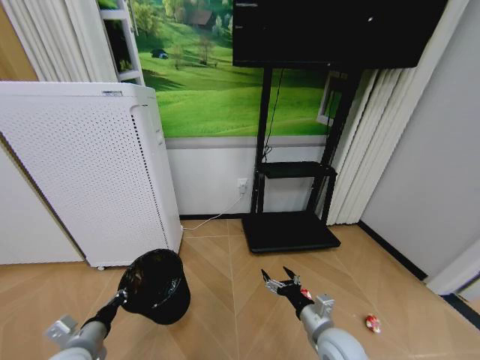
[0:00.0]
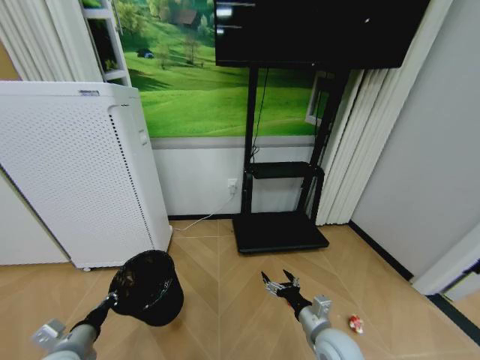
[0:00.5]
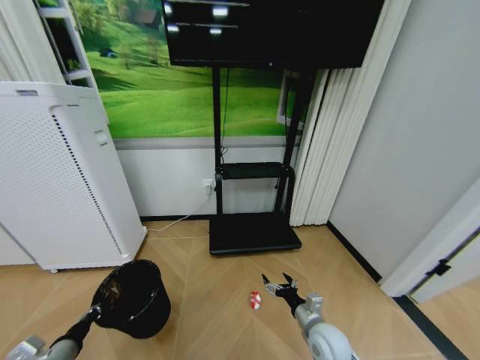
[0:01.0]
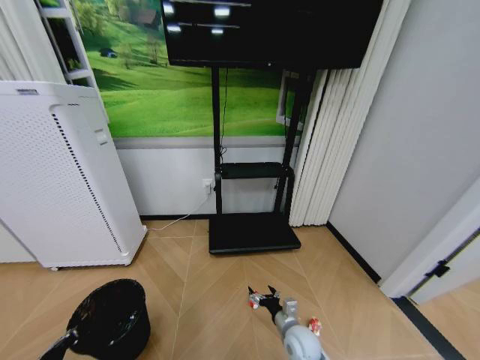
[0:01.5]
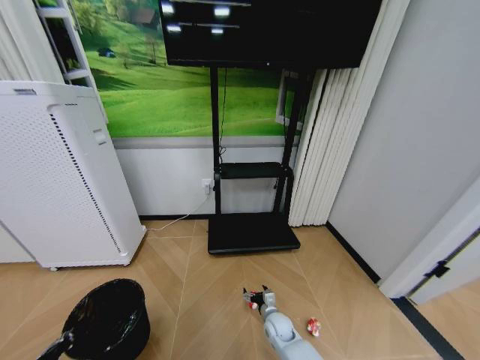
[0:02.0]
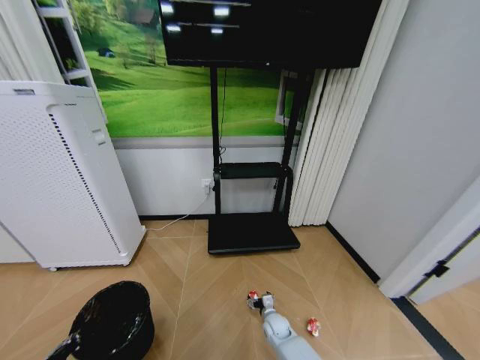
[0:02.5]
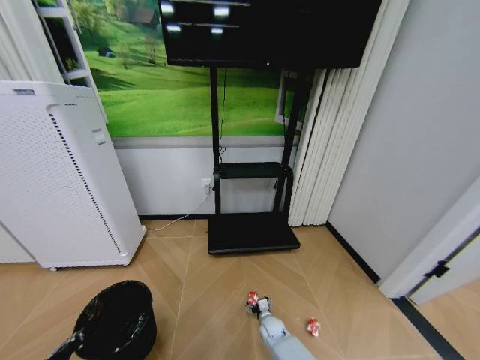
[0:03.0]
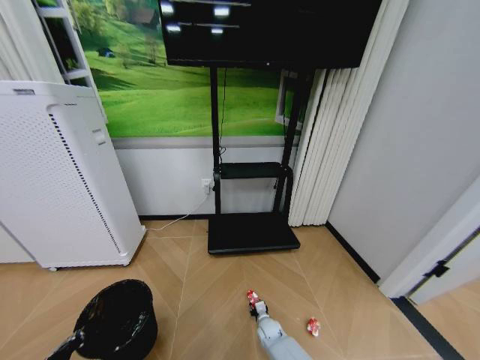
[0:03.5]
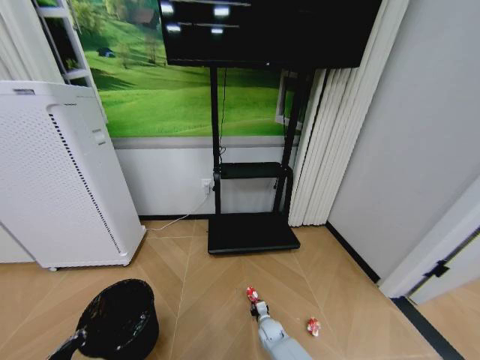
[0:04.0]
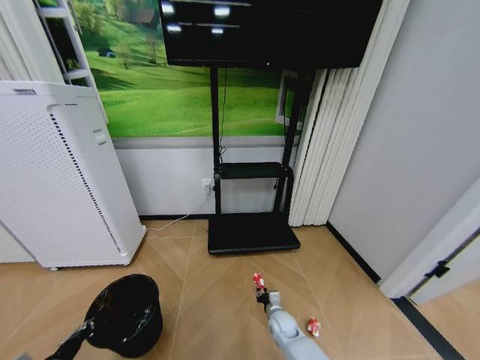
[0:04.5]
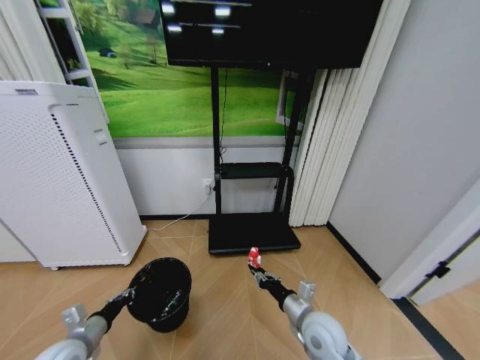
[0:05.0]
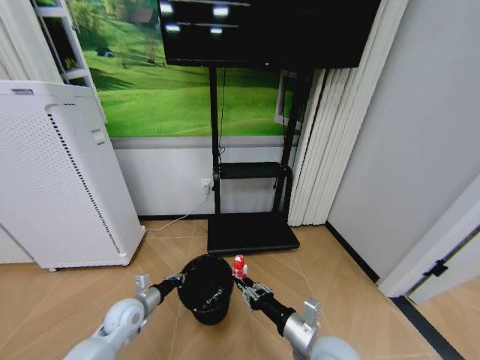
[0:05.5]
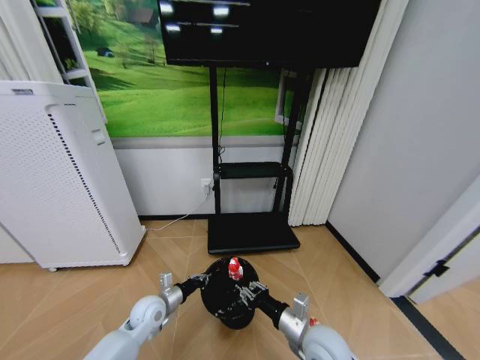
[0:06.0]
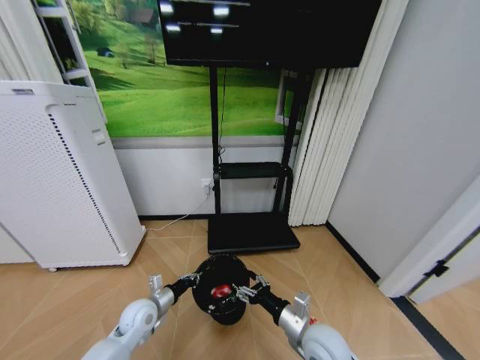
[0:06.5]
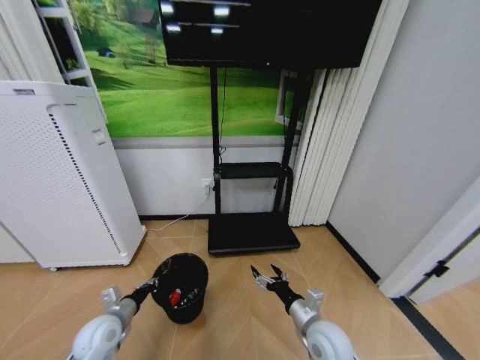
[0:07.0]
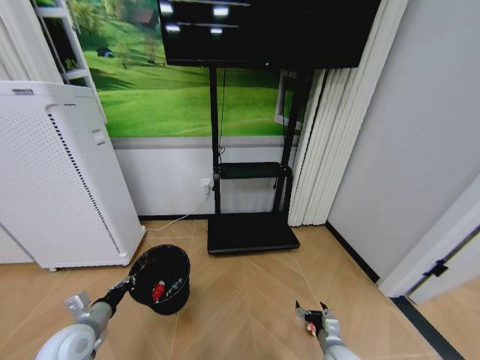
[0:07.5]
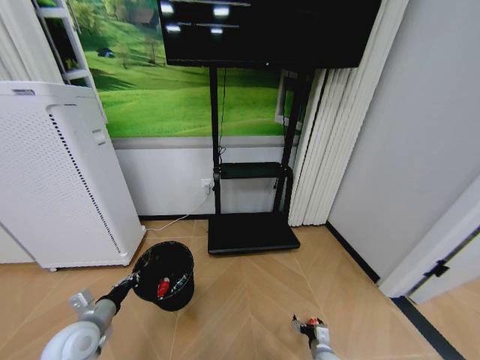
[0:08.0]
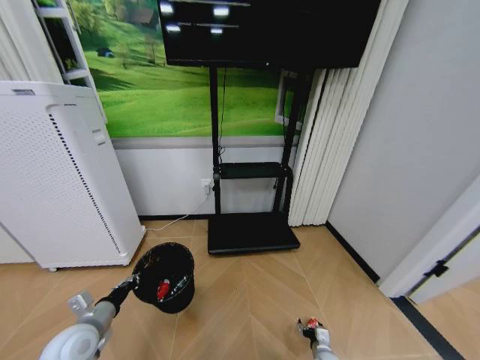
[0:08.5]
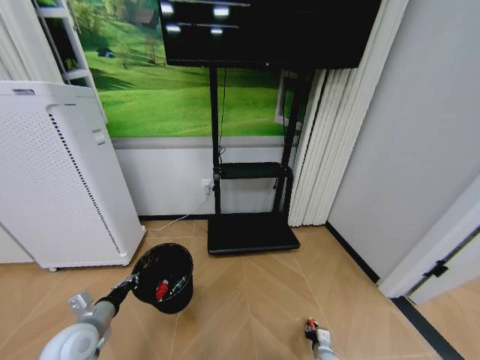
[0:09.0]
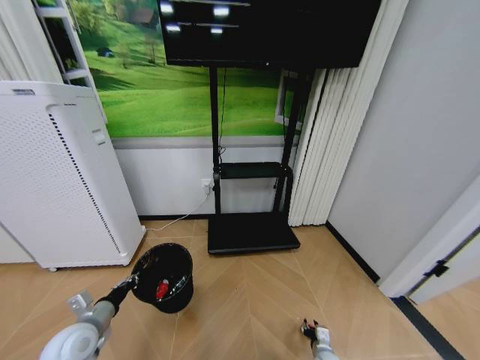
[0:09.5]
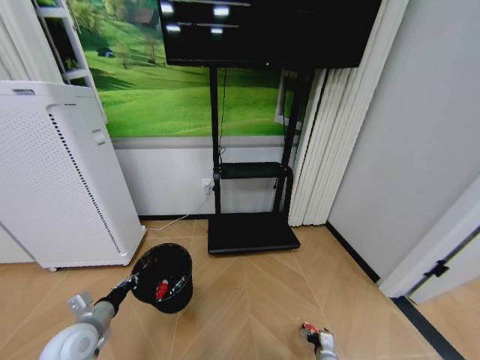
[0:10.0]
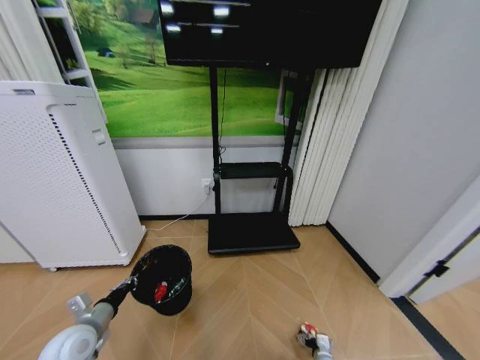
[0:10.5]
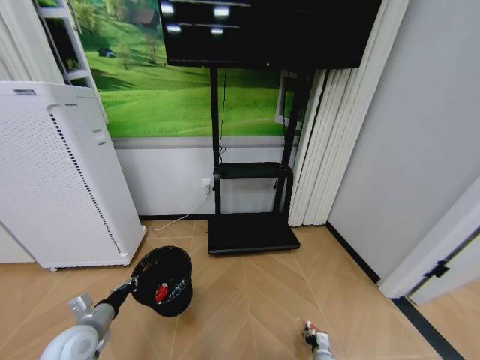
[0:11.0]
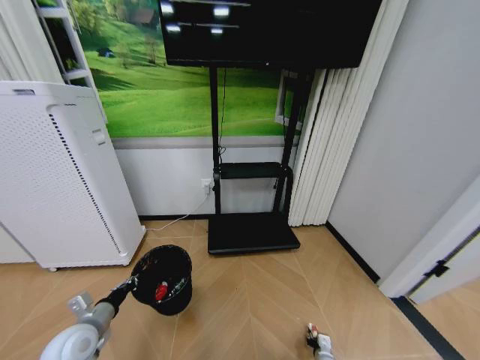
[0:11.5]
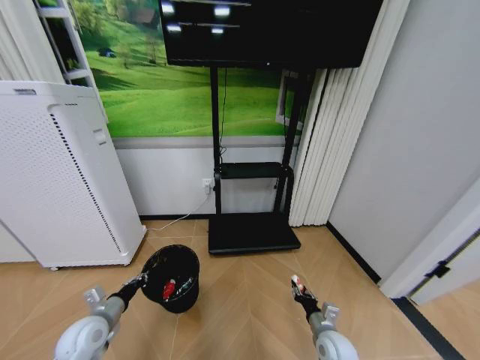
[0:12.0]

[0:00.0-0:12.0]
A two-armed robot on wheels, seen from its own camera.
Task of the whole recording: Pick up the trash bin and place the garbage on the floor into it.
0:00.0 to 0:02.0: The right gripper shifts approximately 25 cm downward, forward and to the left, while the left gripper heads backward and to the left, covering some 10 cm.
0:02.0 to 0:04.0: The right gripper goes roughly 10 cm downward, and closes.
0:04.0 to 0:06.0: The right gripper goes some 30 cm upward; the left gripper heads forward and to the right, covering roughly 30 cm.
0:06.0 to 0:08.0: The left gripper shifts roughly 15 cm to the left, backward and upward. Meanwhile the right gripper is displaced downward and to the right by some 25 cm, and opens up.
0:08.0 to 0:10.0: The right gripper closes, then opens again.
0:10.0 to 0:12.0: The right gripper moves upward, about 15 cm, and closes.

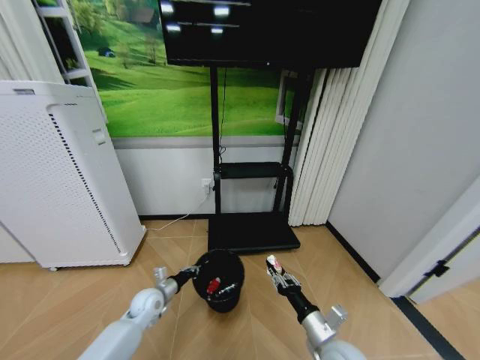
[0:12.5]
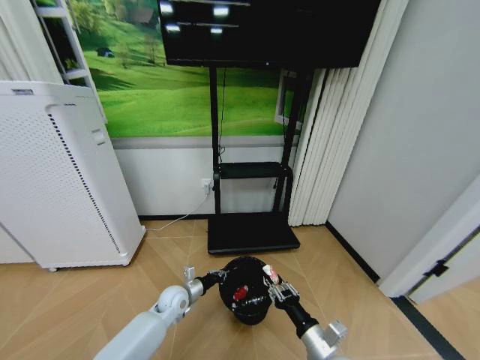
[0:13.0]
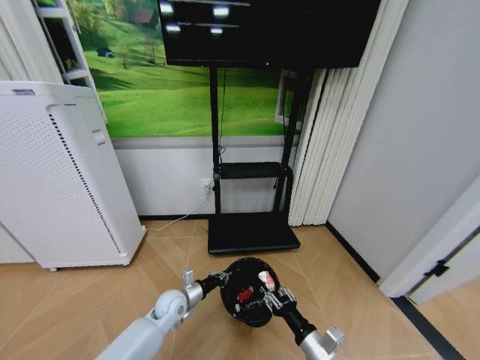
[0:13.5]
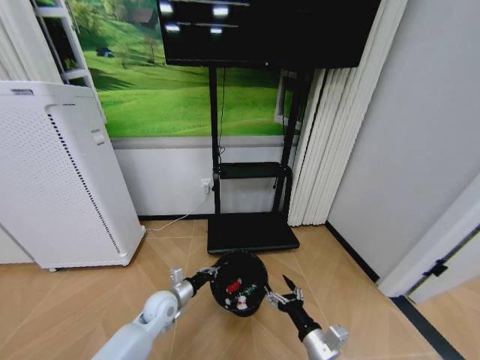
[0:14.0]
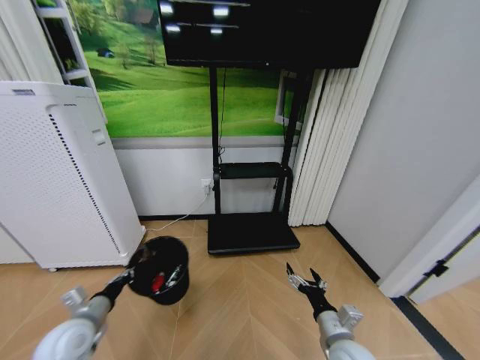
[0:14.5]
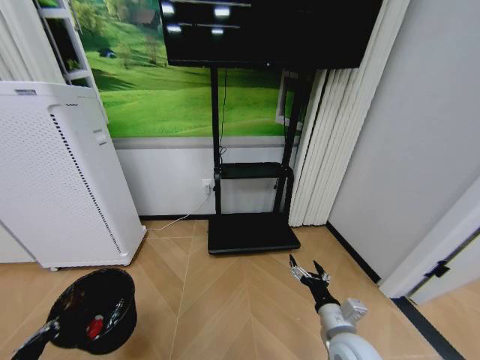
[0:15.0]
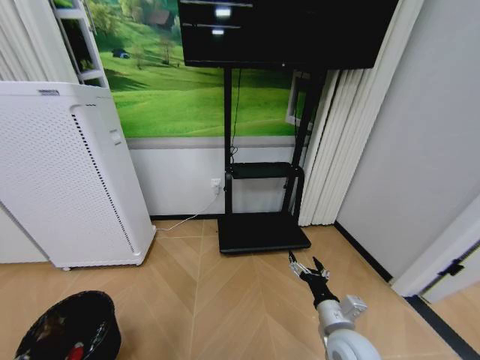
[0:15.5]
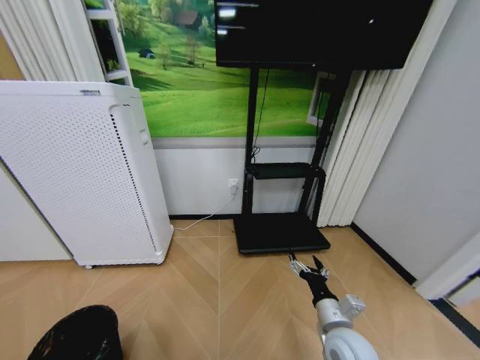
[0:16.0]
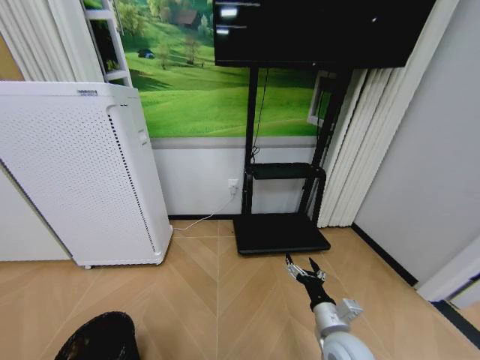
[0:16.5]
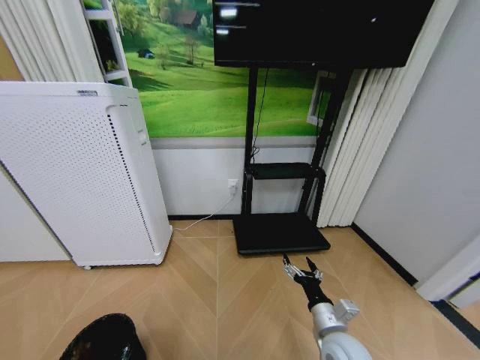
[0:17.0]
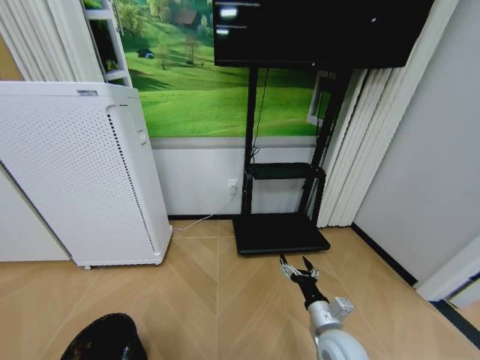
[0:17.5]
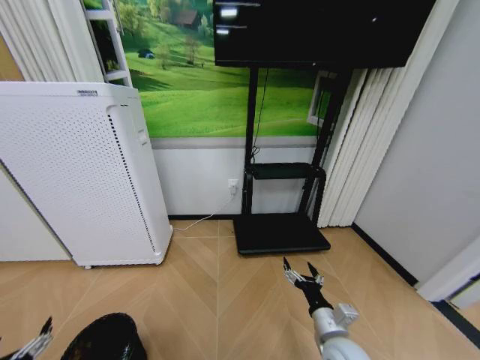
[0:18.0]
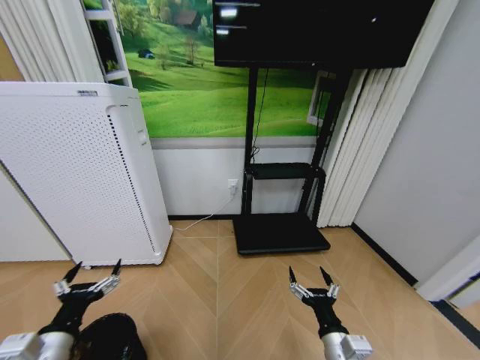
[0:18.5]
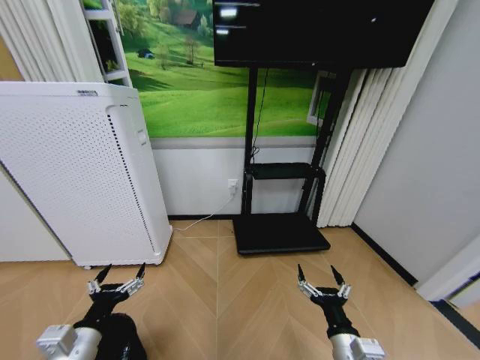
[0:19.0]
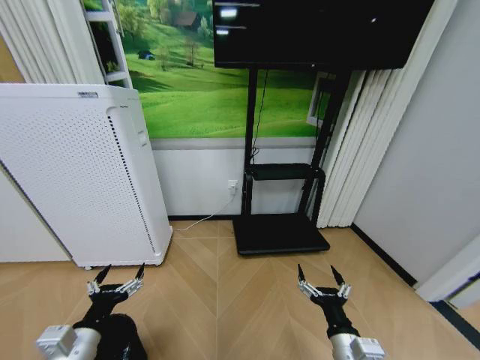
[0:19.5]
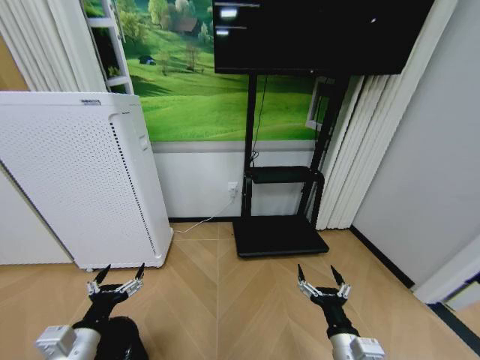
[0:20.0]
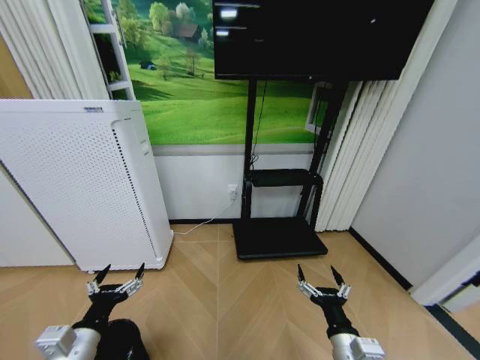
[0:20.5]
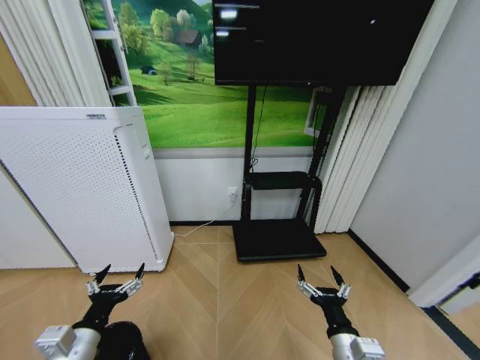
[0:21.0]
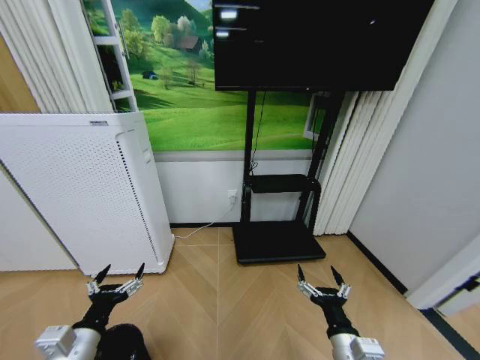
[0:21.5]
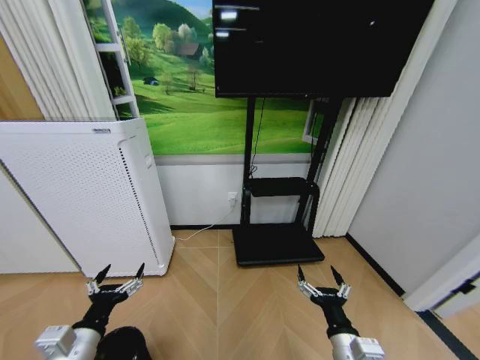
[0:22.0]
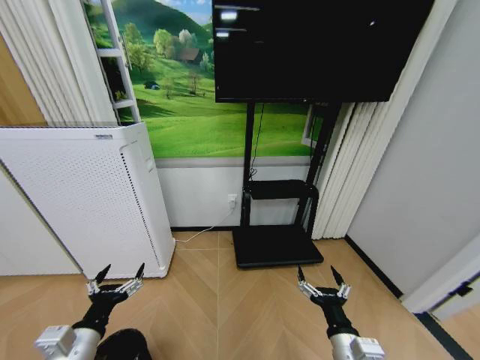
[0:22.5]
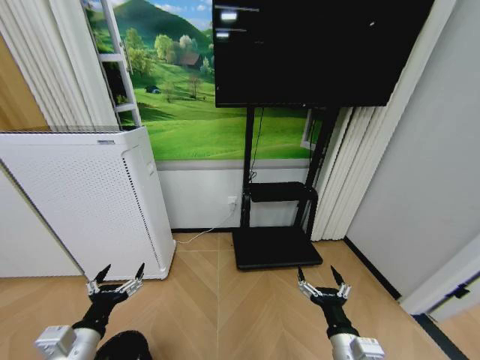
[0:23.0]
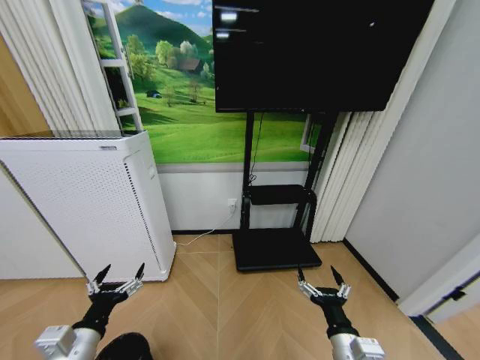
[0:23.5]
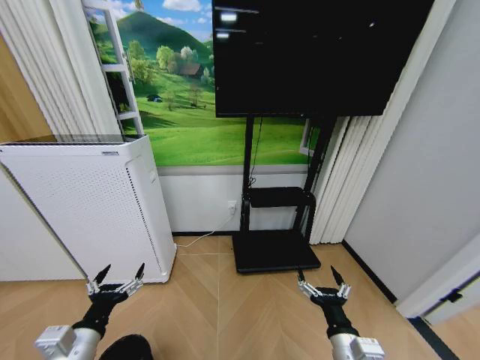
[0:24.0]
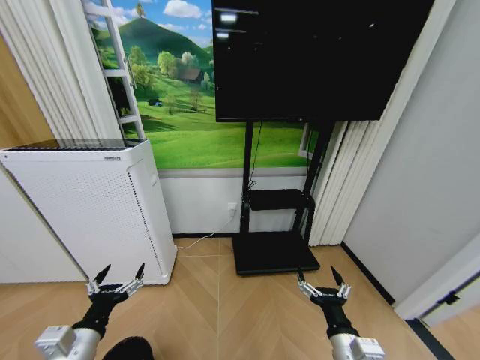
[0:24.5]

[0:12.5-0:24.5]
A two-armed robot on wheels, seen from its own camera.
Task of the whole recording: Pick up the trash bin and place the garbage on the floor into it.
0:12.5 to 0:14.5: The left gripper shifts roughly 20 cm upward, backward and to the left; the right gripper opens up.
0:14.5 to 0:16.5: The left gripper goes roughly 25 cm backward, downward and to the left.
0:16.5 to 0:18.5: The right gripper heads backward, covering roughly 5 cm. The left gripper is displaced upward, to the right and forward by some 20 cm, and opens.
0:18.5 to 0:20.5: The grippers move only a little.
0:20.5 to 0:24.5: Both grippers stay about where they are.
